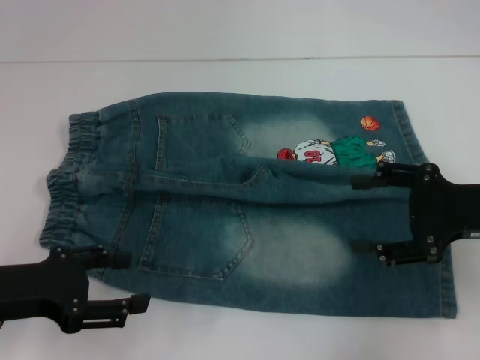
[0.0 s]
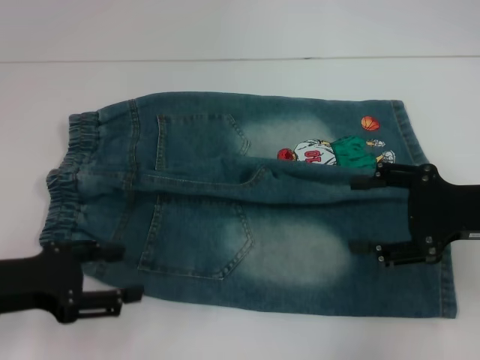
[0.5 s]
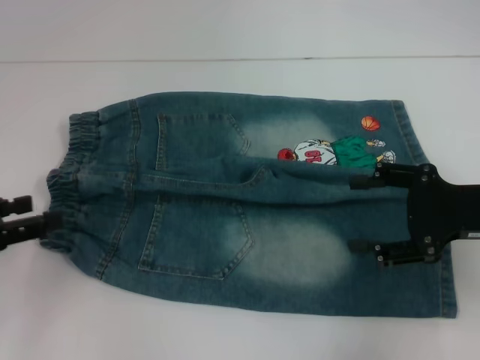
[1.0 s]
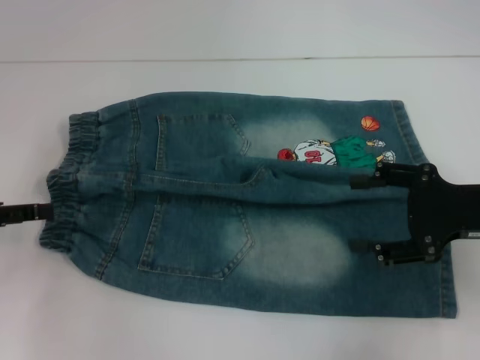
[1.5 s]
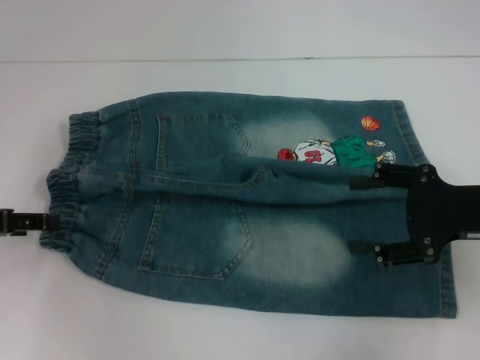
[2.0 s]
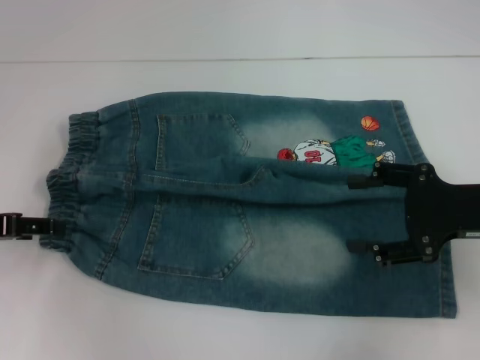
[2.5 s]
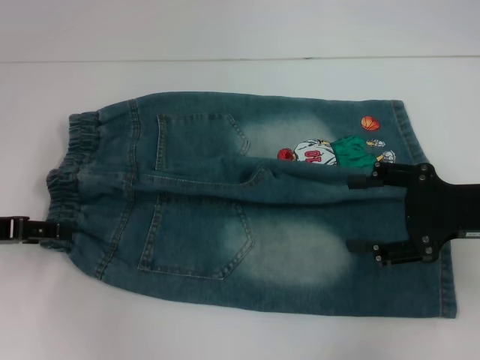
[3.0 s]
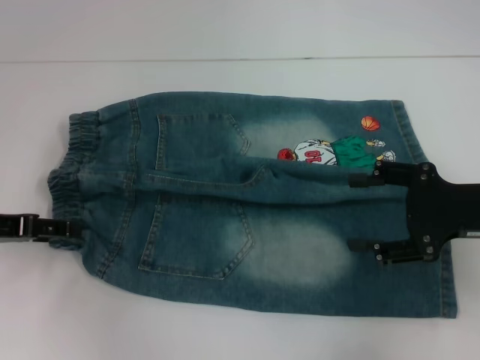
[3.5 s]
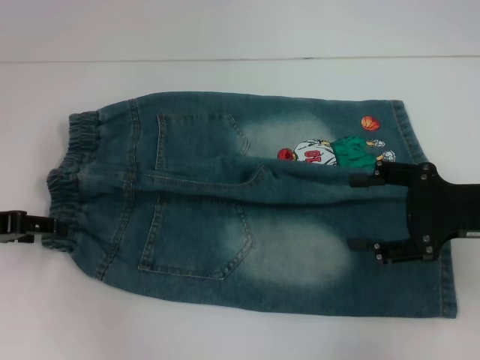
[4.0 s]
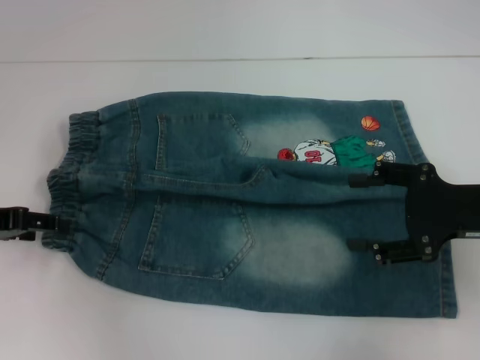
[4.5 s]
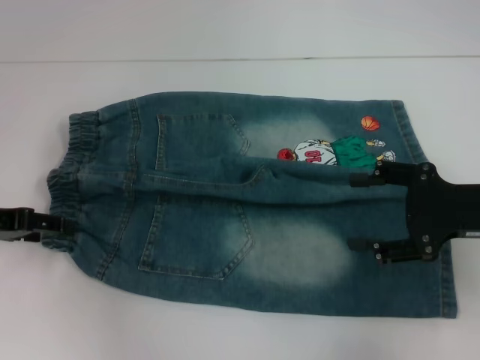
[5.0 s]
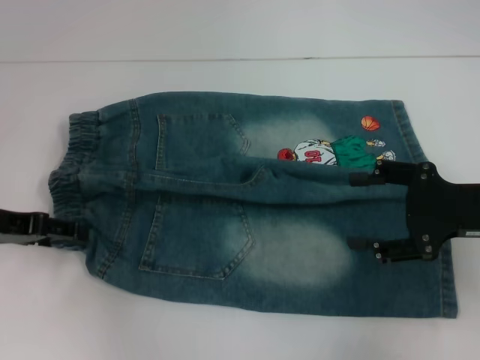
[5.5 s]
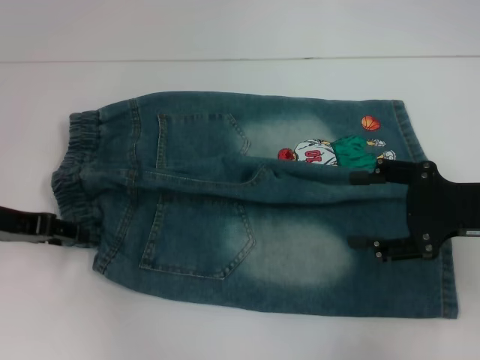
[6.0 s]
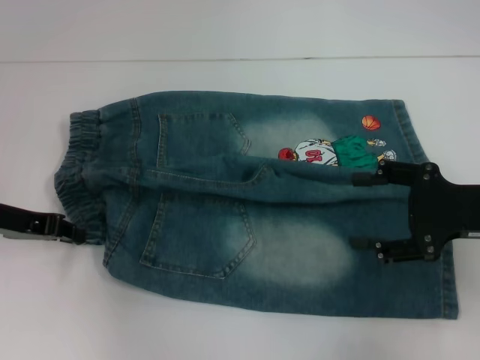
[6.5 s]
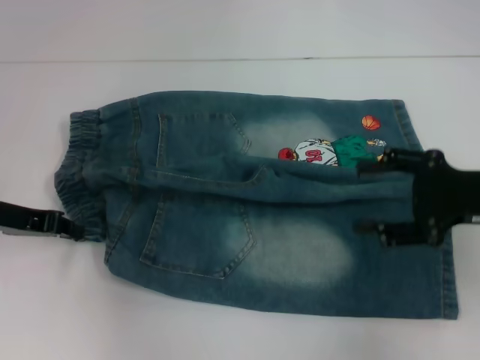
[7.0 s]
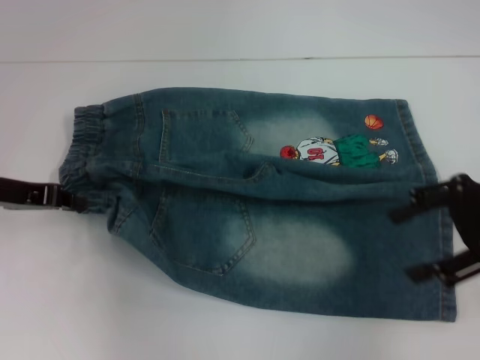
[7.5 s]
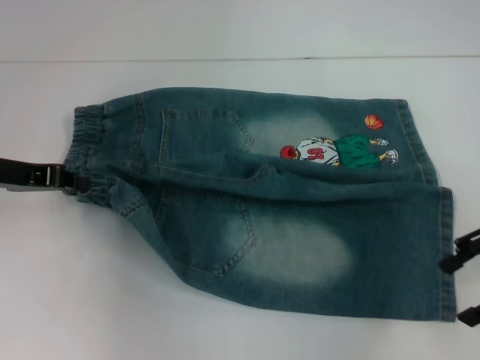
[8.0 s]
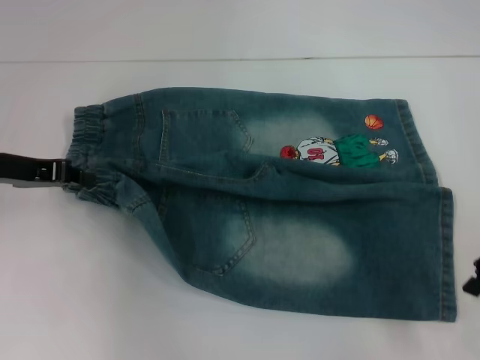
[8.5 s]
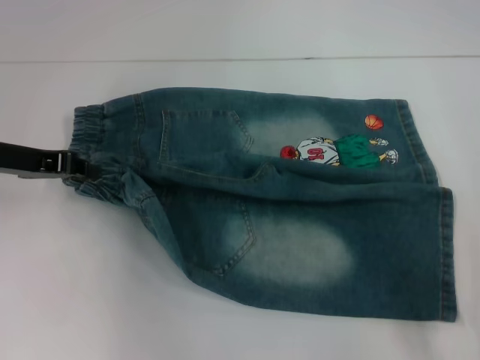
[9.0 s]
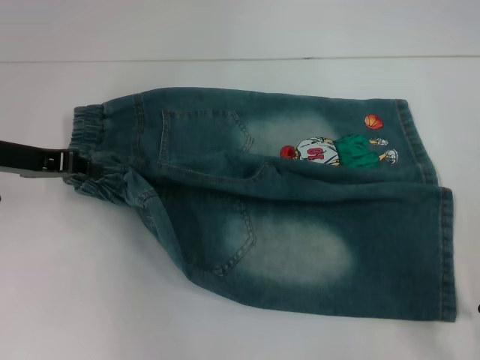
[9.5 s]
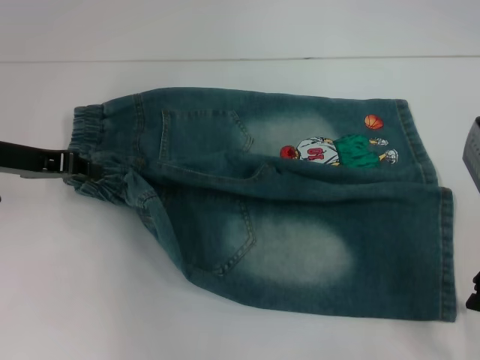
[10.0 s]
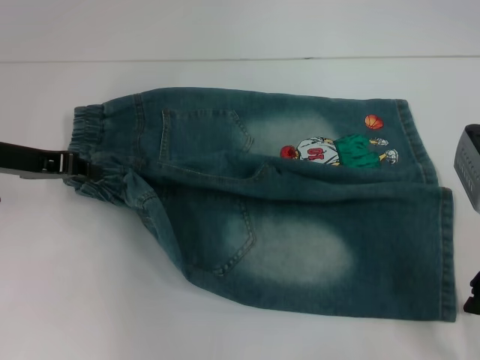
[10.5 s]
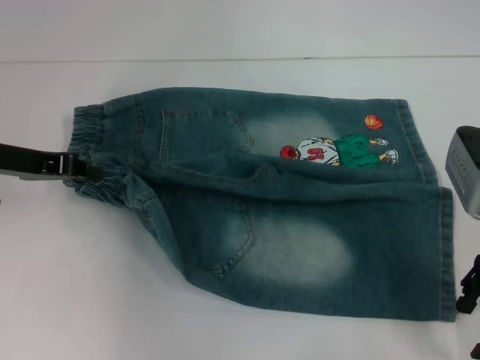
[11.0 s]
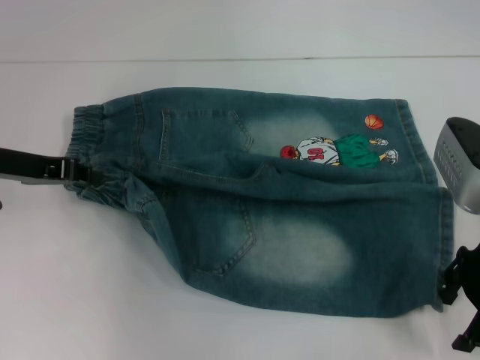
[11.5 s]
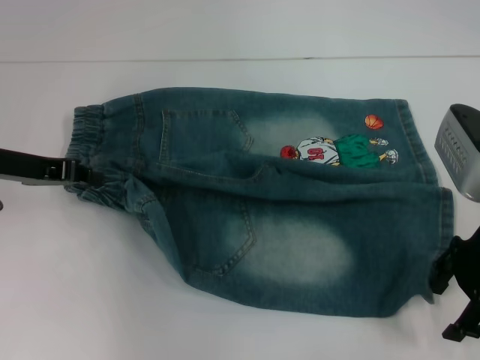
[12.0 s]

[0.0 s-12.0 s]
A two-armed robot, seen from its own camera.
Step, 0.0 to 5.5 s: Hold the lower left waistband with your left hand.
0.0 to 2.0 s: The left gripper travels forward and to the left by roughly 10 cm.
4.0 to 6.0 s: The grippers stay close to where they were, moving slightly.
6.0 to 8.0 s: The left gripper closes up; the right gripper changes place by roughly 5 cm.
8.0 to 10.0 s: The right gripper changes place by approximately 5 cm.
10.0 to 12.0 s: The grippers stay close to where they were, moving slightly.

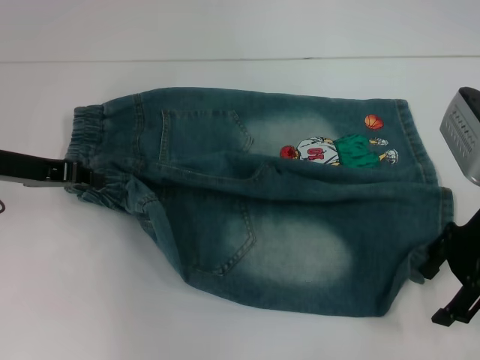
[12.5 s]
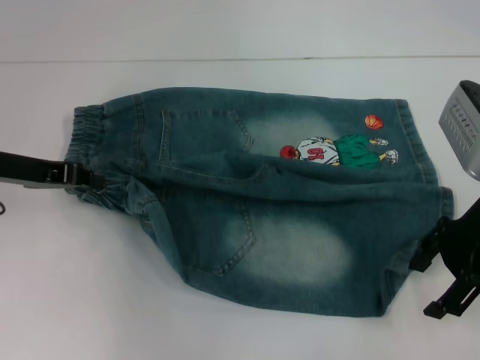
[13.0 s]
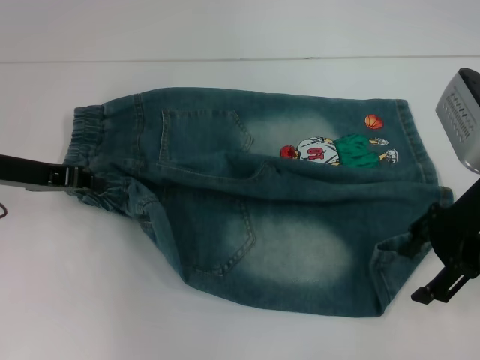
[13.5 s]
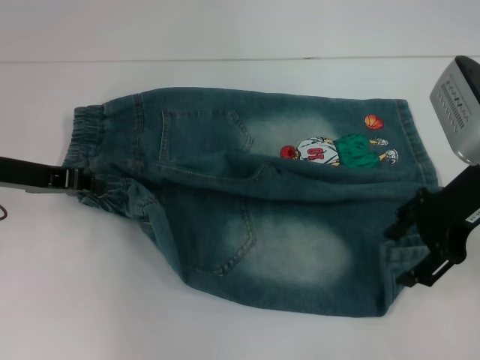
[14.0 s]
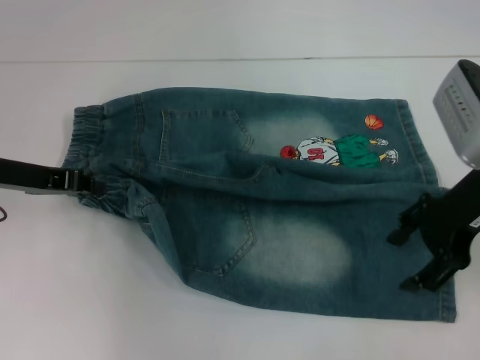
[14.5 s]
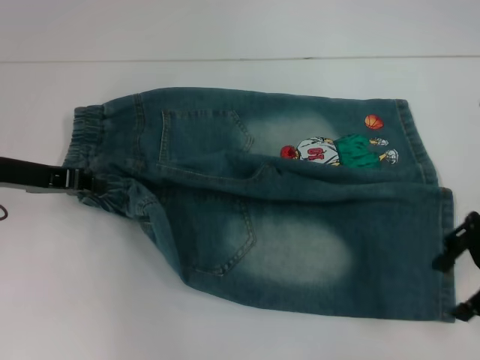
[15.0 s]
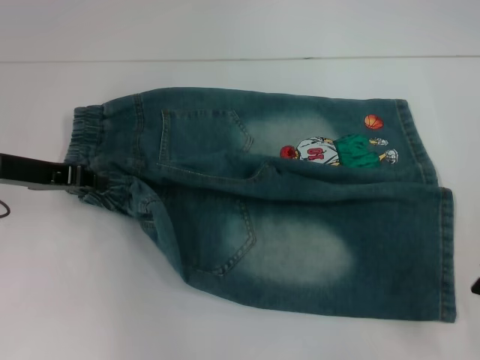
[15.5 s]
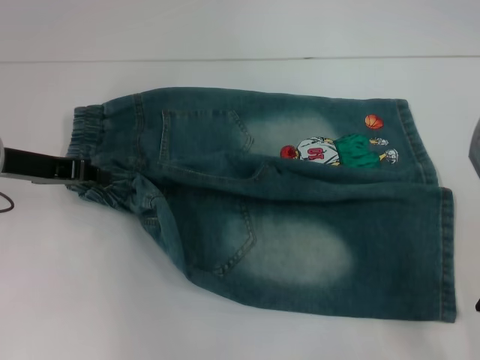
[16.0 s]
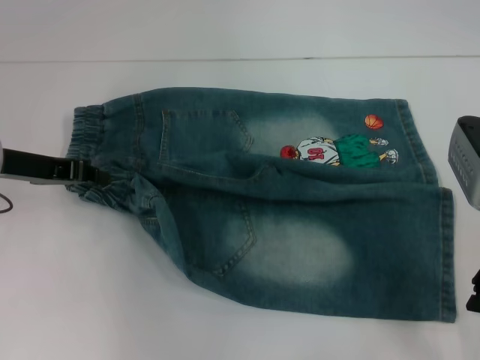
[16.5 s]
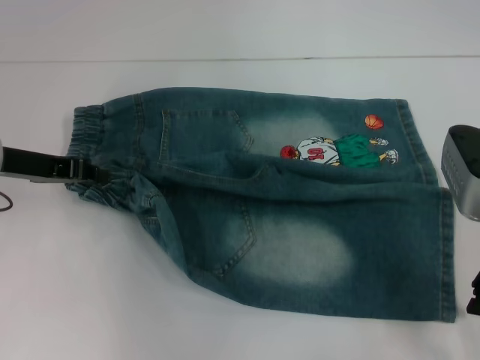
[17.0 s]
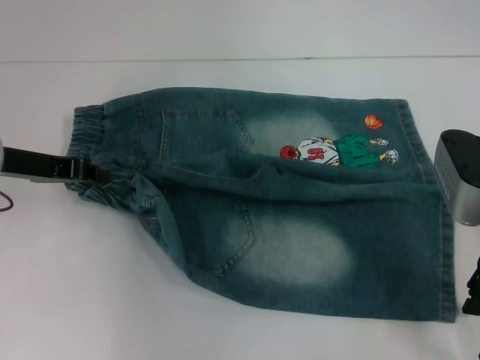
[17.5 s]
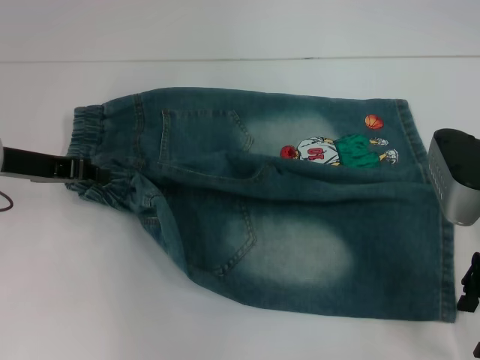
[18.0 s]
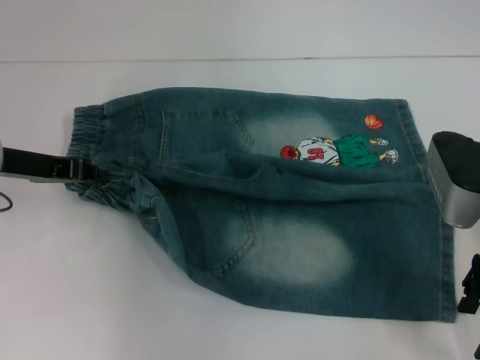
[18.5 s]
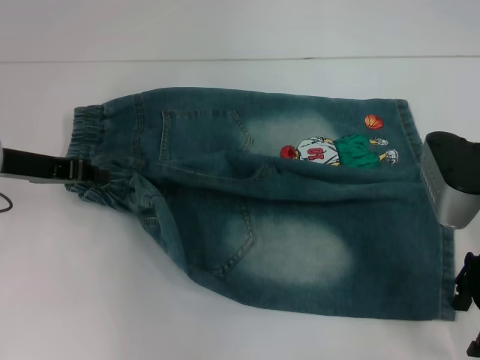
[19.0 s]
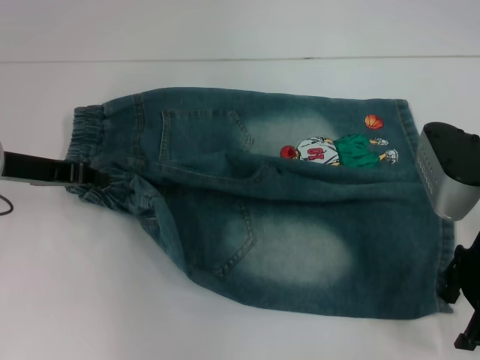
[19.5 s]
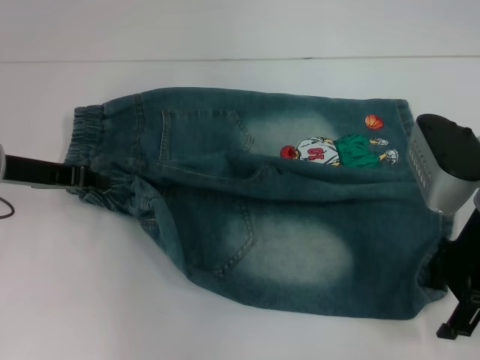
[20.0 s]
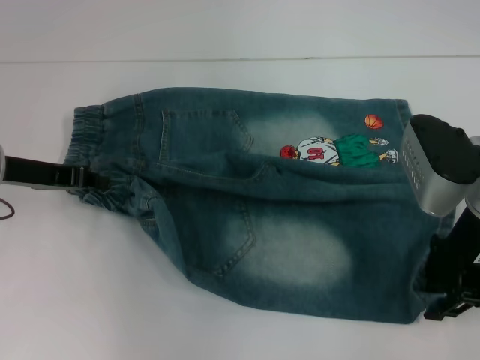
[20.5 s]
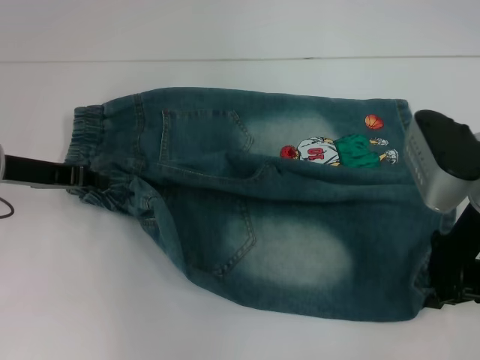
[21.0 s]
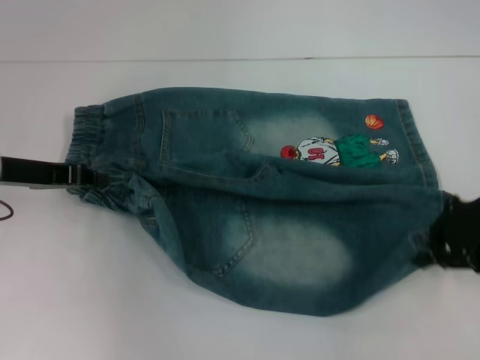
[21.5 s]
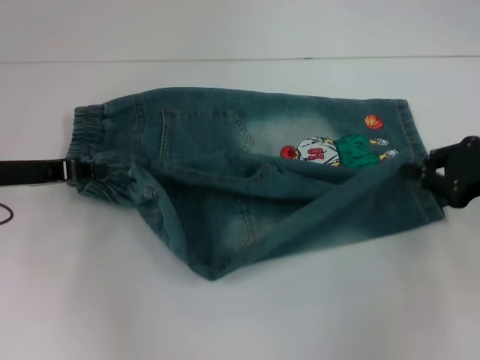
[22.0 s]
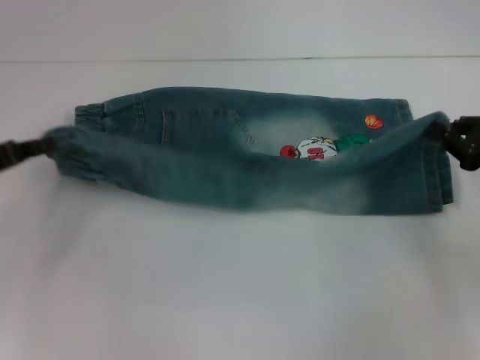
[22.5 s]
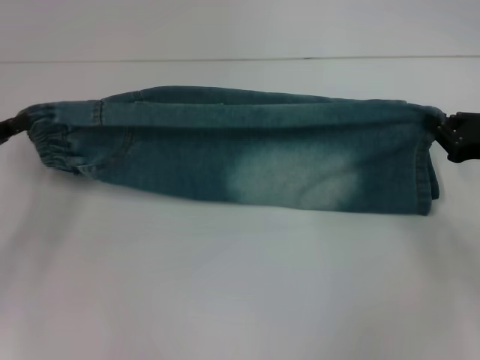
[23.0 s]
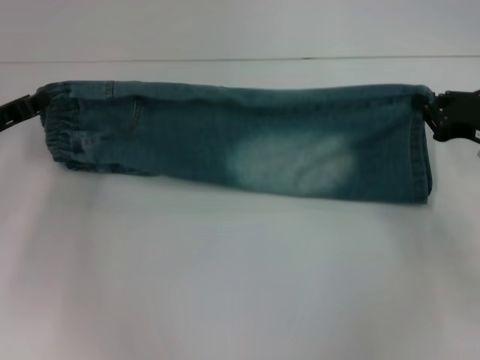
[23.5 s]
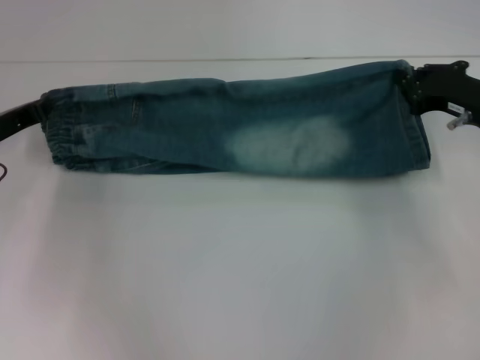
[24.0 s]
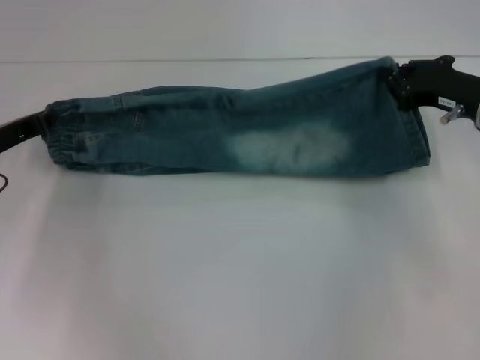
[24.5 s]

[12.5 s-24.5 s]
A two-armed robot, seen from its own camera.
Step, 12.5 to 21.0 s: Grab the lower right pant leg with your right hand.
12.5 to 14.5 s: The grippers make only small movements.
16.5 to 20.5 s: The grippers stay close to where they were, moving slightly.
20.5 to 22.5 s: The left gripper goes some 10 cm to the left and backward. Meanwhile the right gripper travels to the right by approximately 15 cm, and closes.
22.5 to 24.5 s: The right gripper is displaced forward and to the left by approximately 10 cm, while the left gripper is displaced forward by some 5 cm.

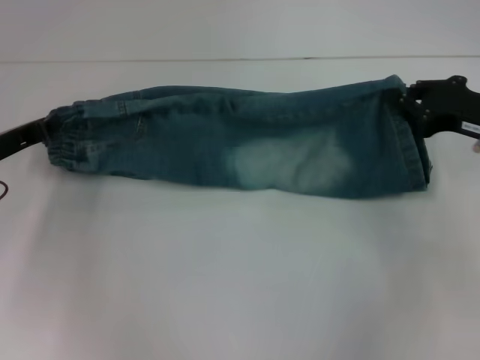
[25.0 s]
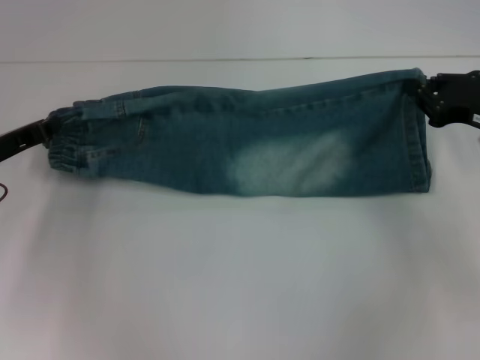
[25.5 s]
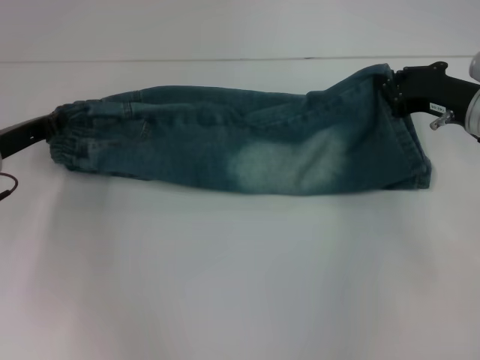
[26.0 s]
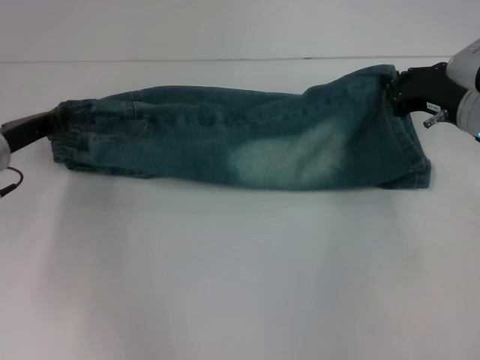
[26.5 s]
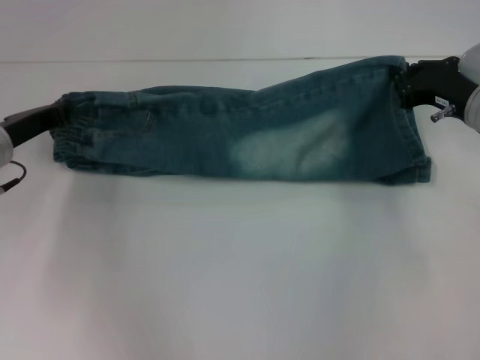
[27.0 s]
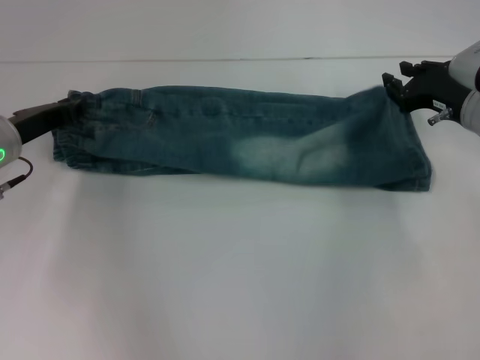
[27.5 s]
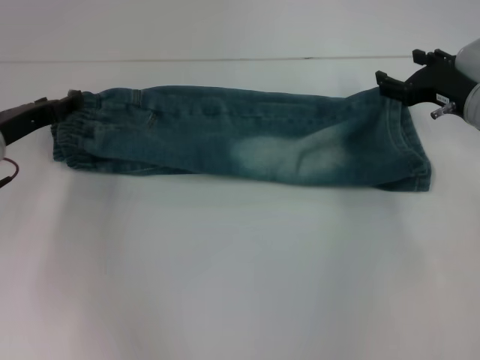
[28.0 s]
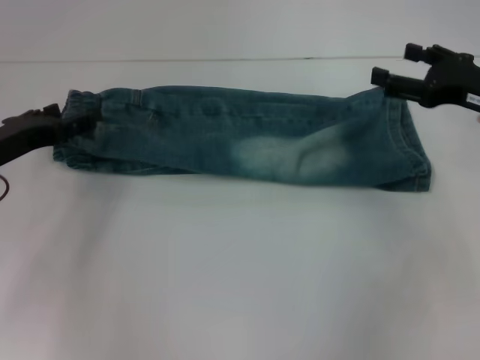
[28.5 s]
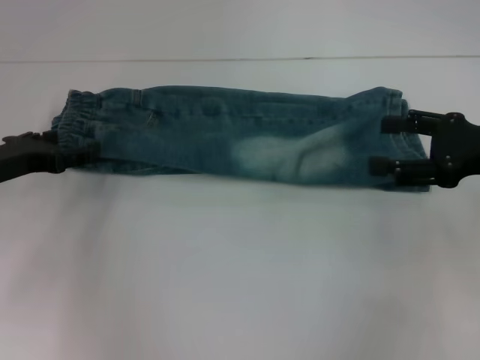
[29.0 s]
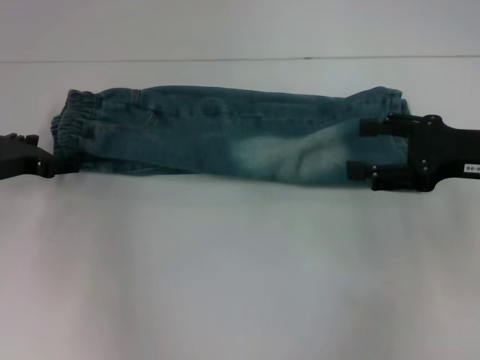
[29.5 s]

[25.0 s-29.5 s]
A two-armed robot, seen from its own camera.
Step, 25.0 to 28.0 s: Fold upward with your right hand.
25.0 to 27.0 s: The right gripper travels forward by roughly 5 cm.
27.0 to 29.5 s: The right gripper is displaced backward by some 10 cm, and opens its fingers. Meanwhile the left gripper opens up.
